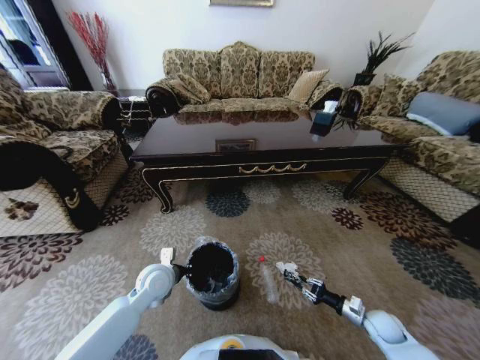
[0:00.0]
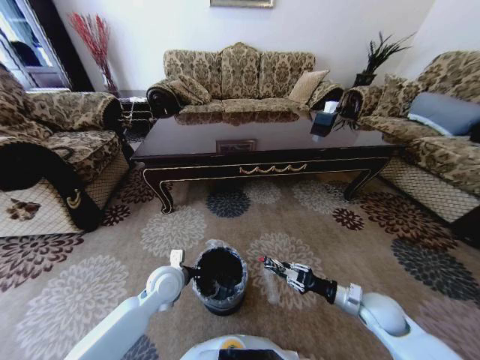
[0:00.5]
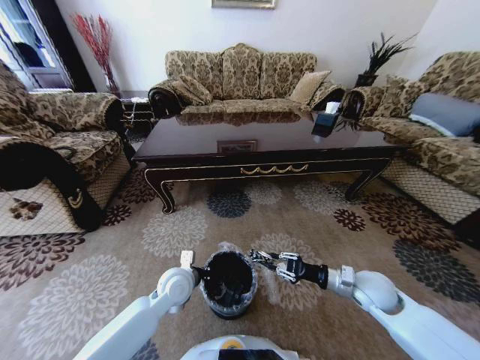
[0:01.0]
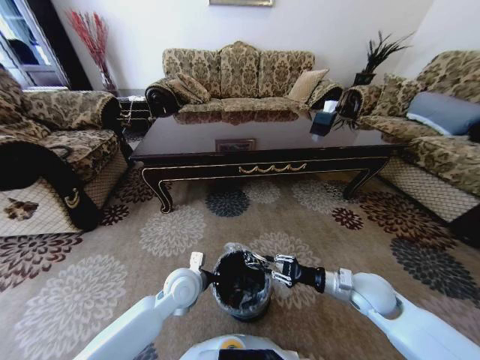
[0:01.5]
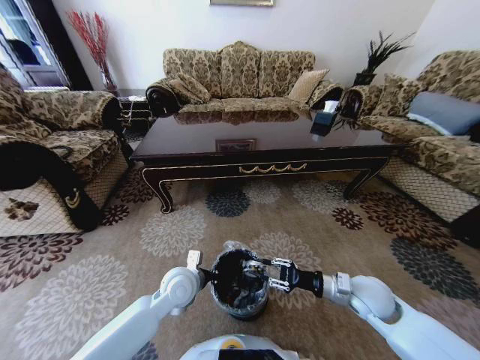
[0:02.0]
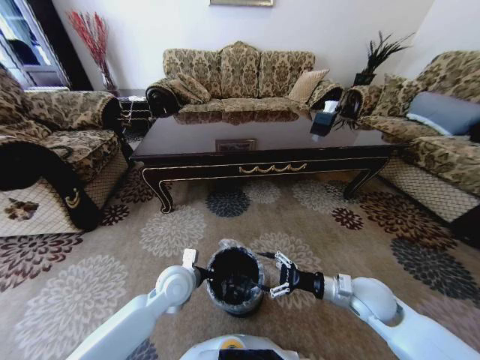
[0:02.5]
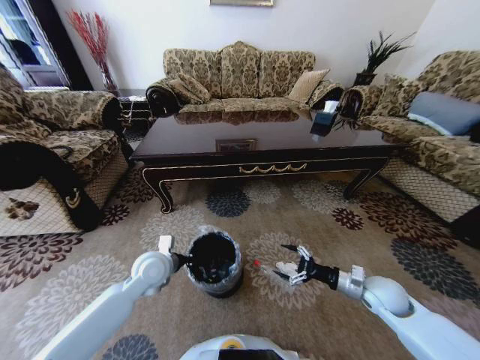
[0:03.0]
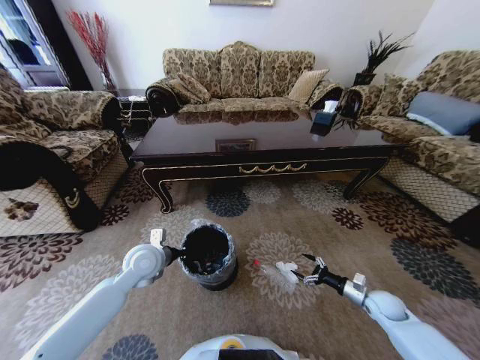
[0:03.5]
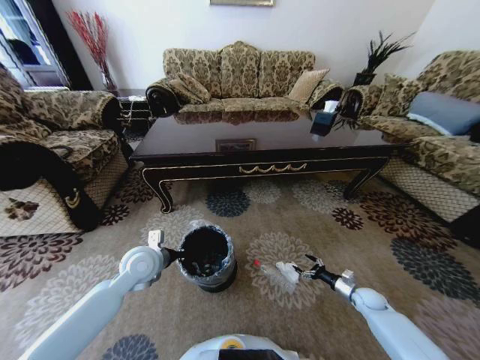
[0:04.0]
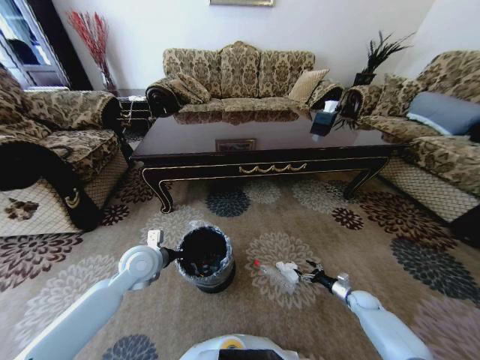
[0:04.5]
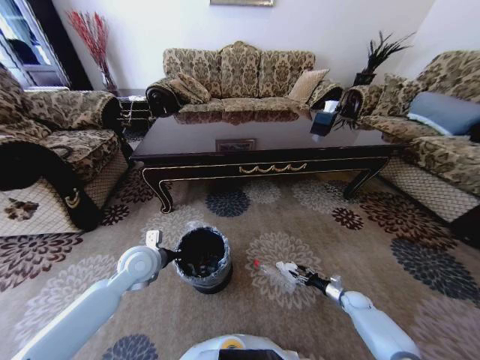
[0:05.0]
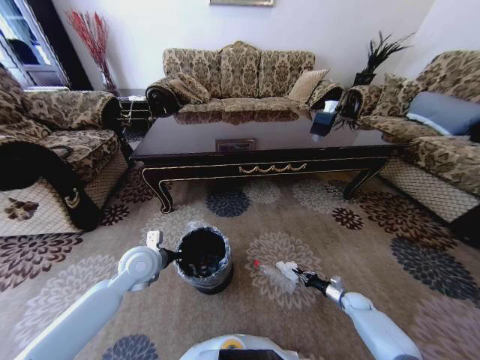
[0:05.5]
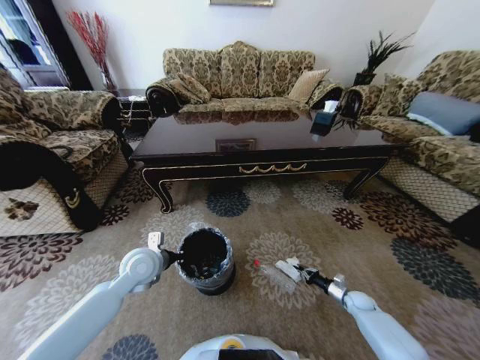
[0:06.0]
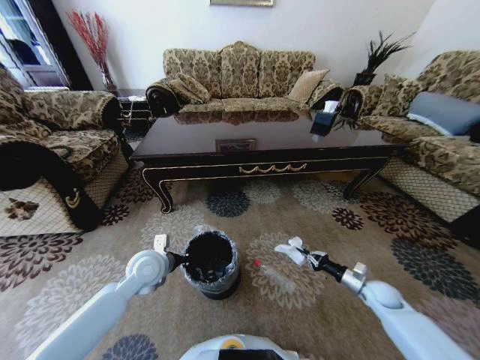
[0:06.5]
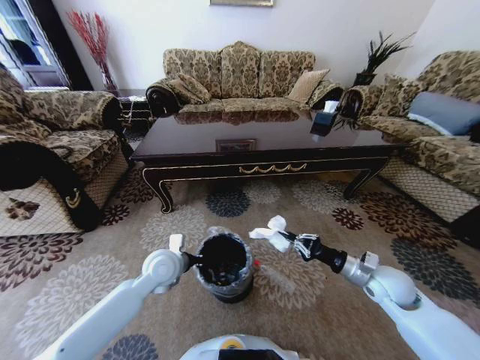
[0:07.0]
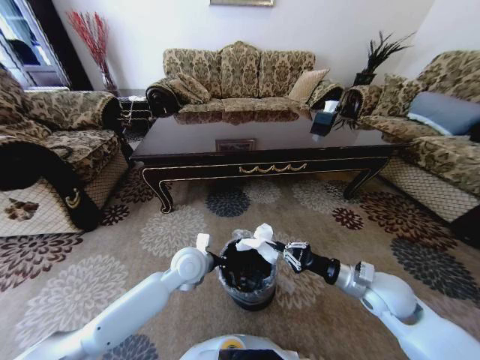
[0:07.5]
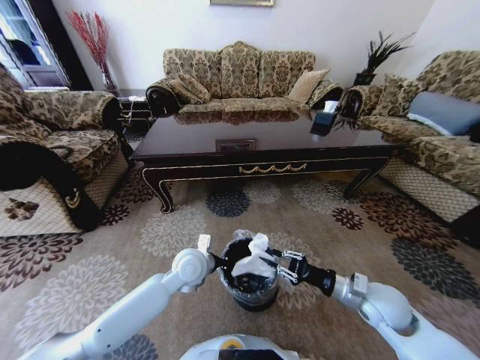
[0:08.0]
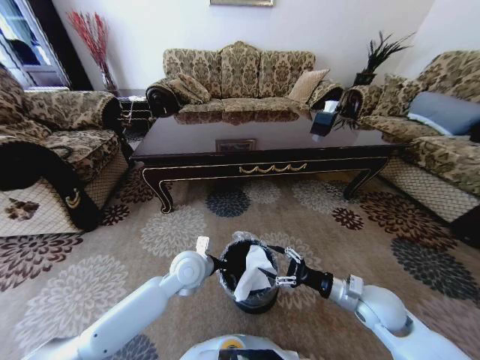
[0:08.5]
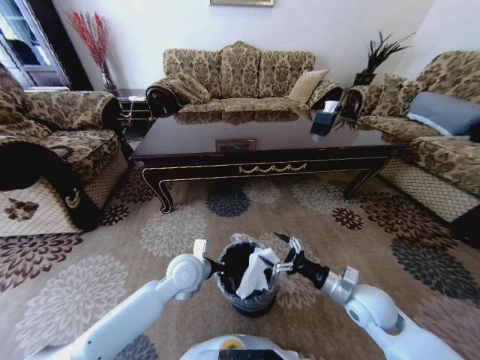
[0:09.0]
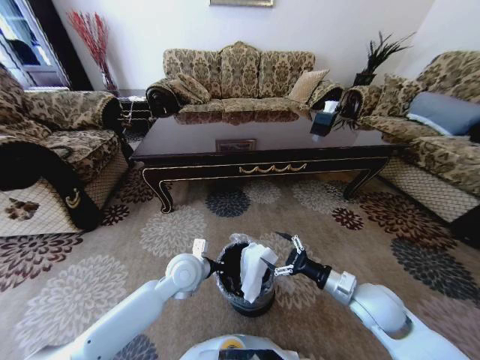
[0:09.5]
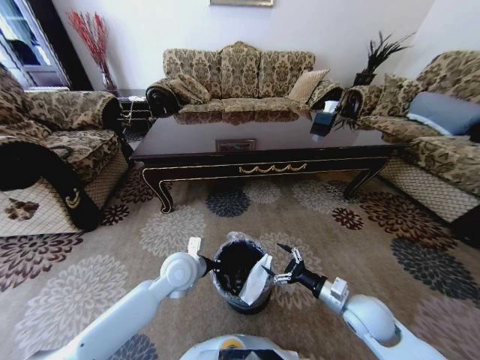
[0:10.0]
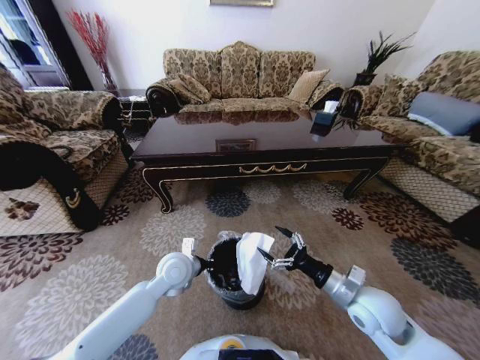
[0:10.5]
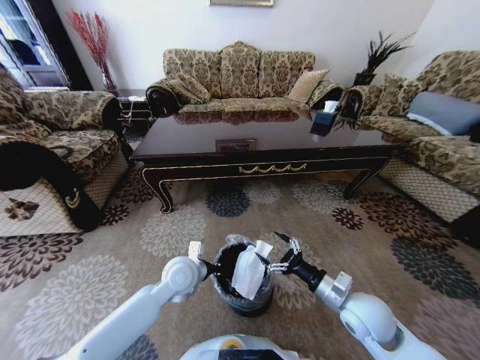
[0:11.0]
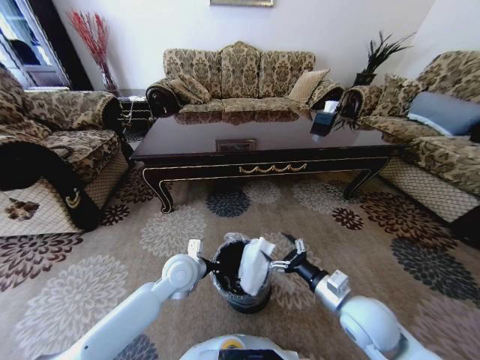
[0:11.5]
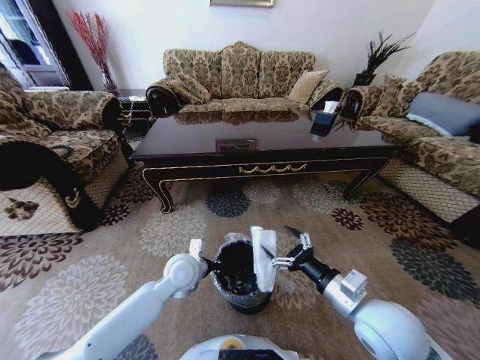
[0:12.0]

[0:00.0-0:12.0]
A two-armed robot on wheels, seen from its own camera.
Task of the whole recording: Move to the front of the table and pick up the trash from the floor, then place it into the trash bin.
0:00.0 to 0:02.0: The left gripper moves to the right, roughly 5 cm. Meanwhile the right gripper shifts some 20 cm upward and to the left.
0:02.0 to 0:04.0: The right gripper moves downward and to the right, approximately 25 cm, and opens its fingers, while the left gripper shifts about 10 cm to the left.
0:04.0 to 0:06.0: The right gripper closes its fingers.
0:06.0 to 0:08.0: The left gripper goes some 15 cm to the right. The right gripper moves upward and to the left, about 30 cm.
0:08.0 to 0:10.0: The right gripper opens up.
0:10.0 to 0:12.0: The right gripper is displaced upward and to the left by approximately 15 cm.

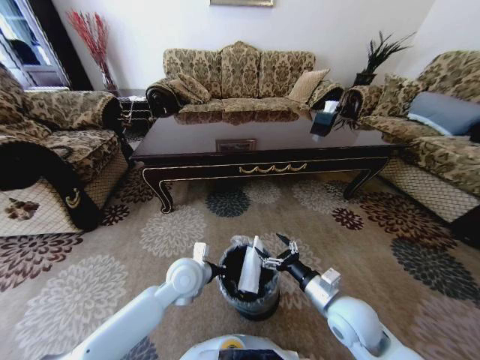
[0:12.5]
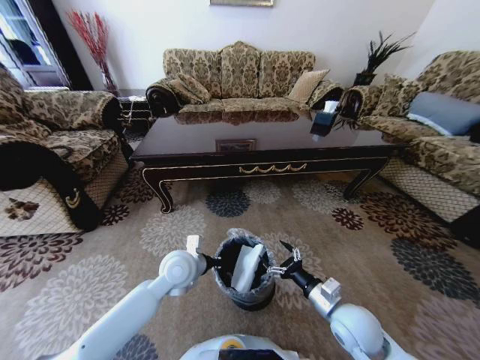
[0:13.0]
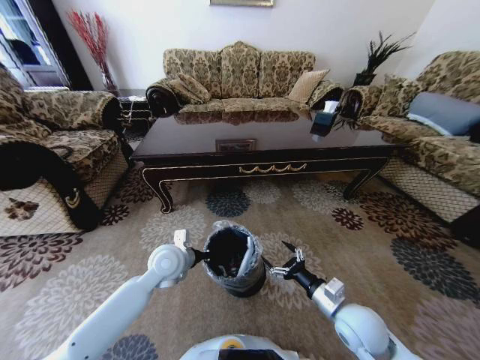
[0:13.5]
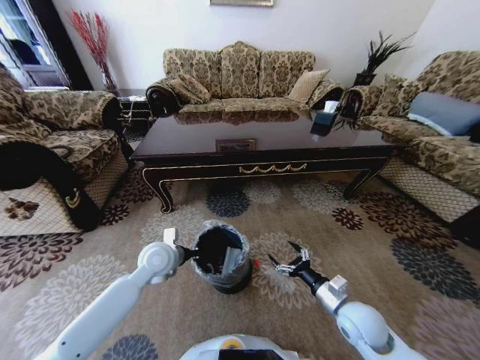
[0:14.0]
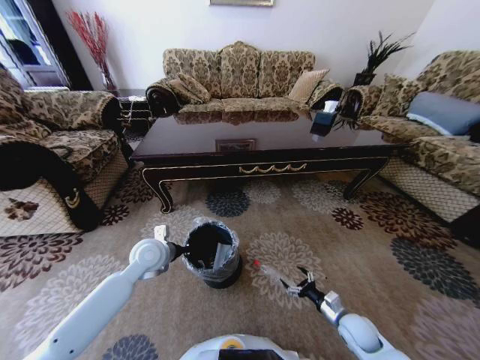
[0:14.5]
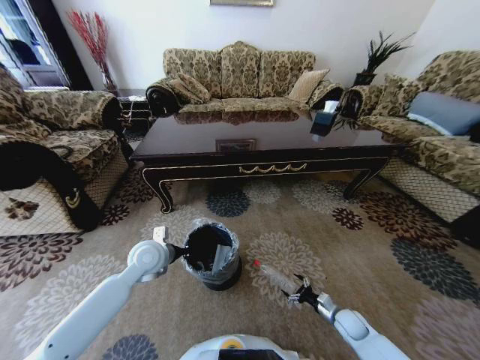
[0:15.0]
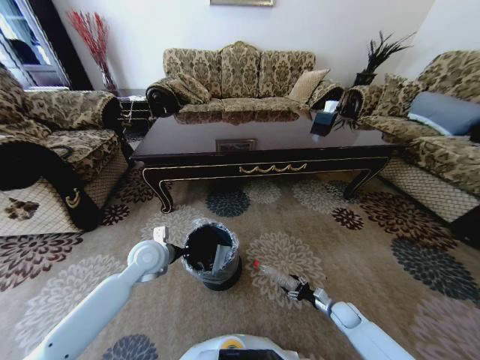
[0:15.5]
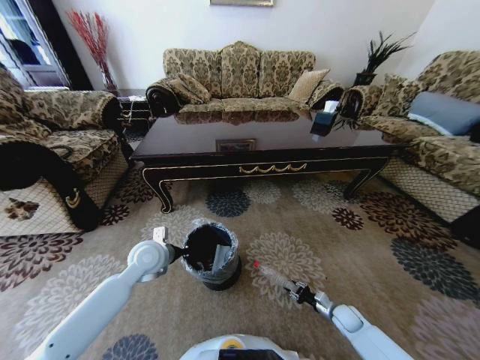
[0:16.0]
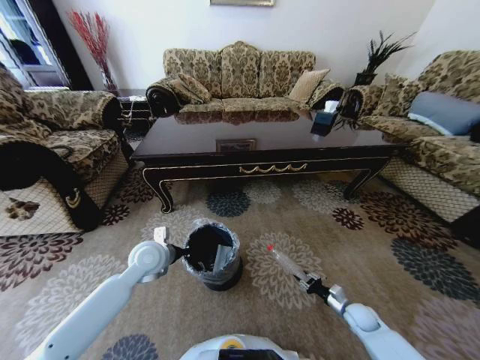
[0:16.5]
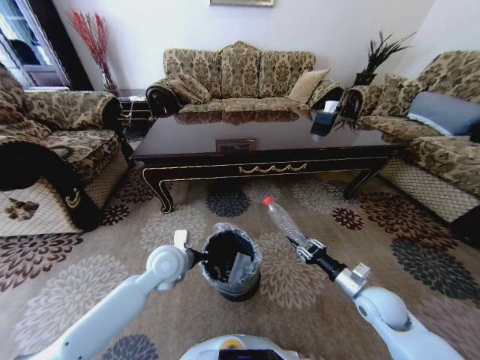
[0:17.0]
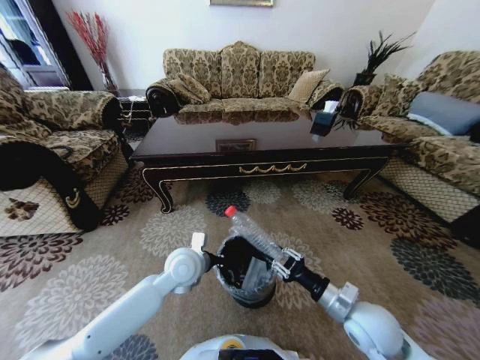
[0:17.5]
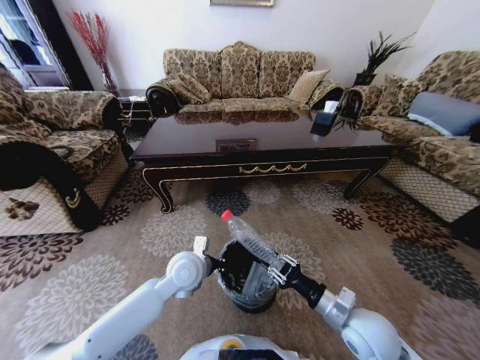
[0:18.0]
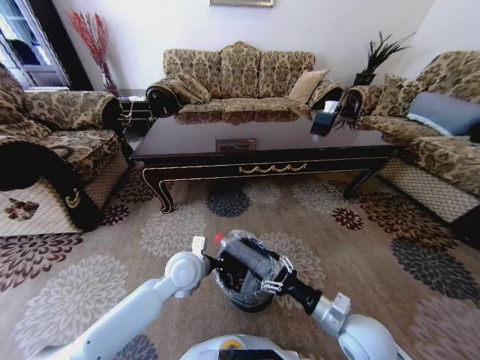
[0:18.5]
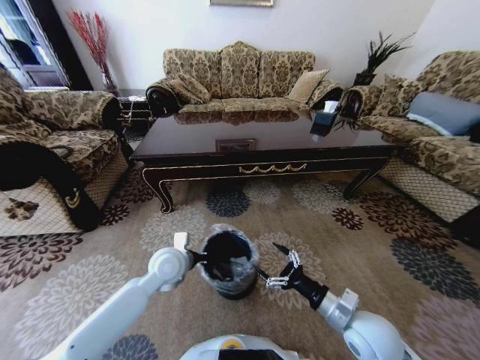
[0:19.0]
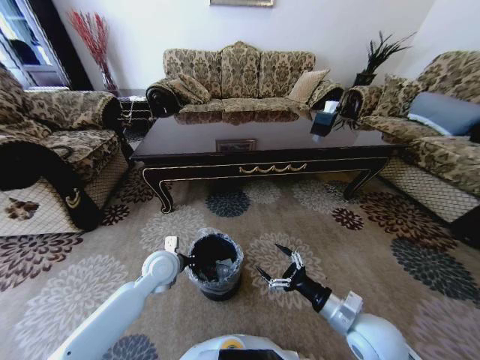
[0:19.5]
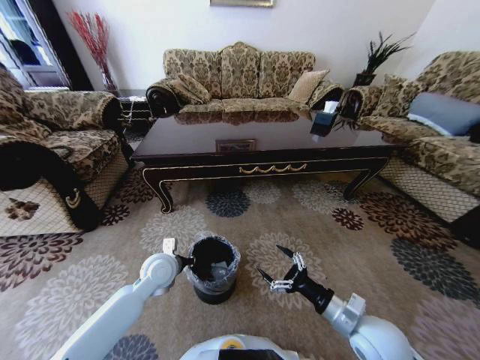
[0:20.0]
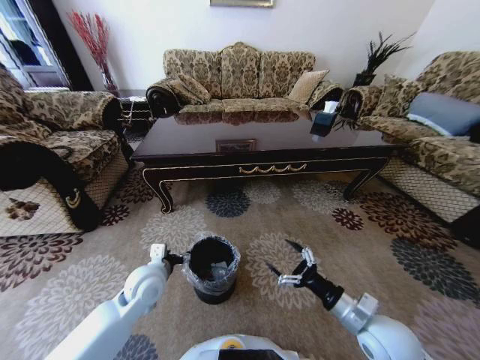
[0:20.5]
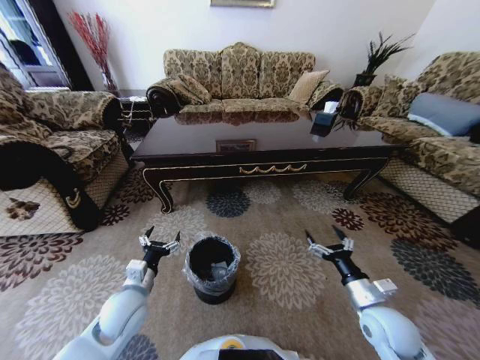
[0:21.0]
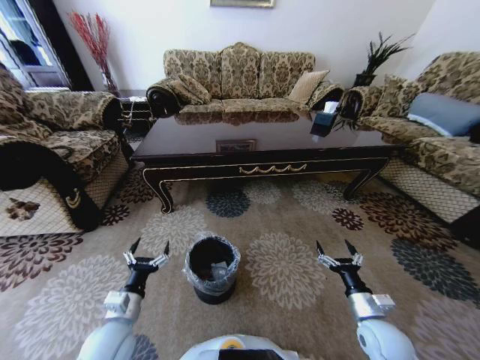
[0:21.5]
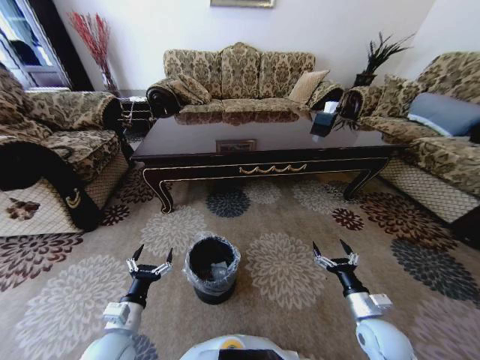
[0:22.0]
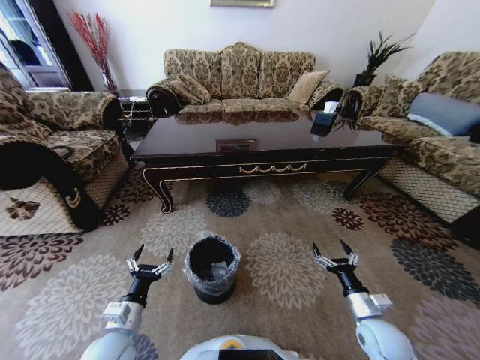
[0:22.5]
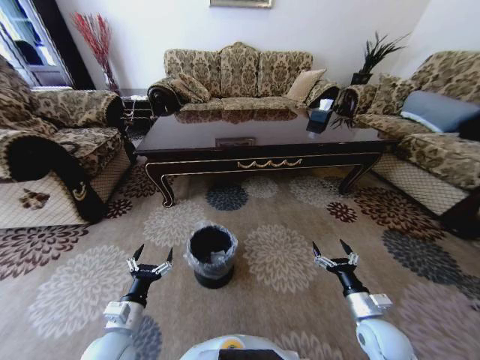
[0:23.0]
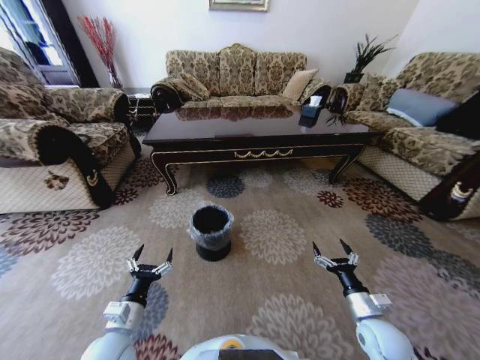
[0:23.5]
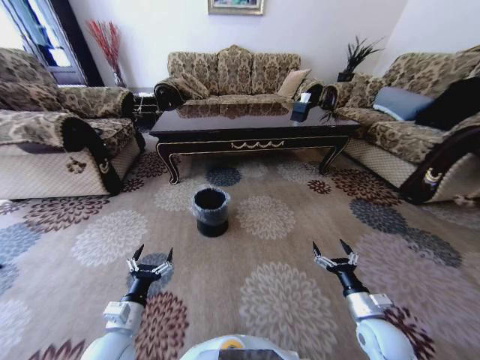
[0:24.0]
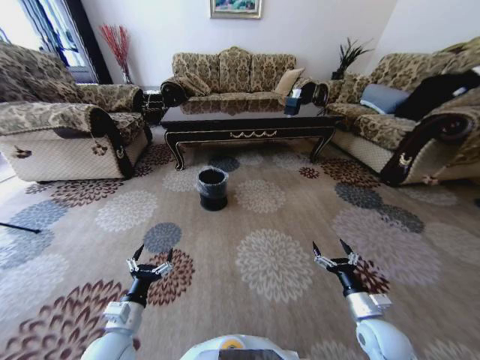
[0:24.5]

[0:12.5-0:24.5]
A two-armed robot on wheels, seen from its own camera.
Task of the whole recording: Move to the front of the table and pick up the trash from the floor, then place it into the trash bin.
0:12.5 to 0:14.5: The left gripper goes some 10 cm to the left and forward. The right gripper heads downward and to the right, covering roughly 20 cm.
0:14.5 to 0:16.5: The right gripper shifts approximately 10 cm to the right and downward, and closes up.
0:16.5 to 0:18.5: The left gripper goes approximately 10 cm to the right, while the right gripper shifts approximately 30 cm upward and to the left, and opens.
0:18.5 to 0:20.5: The left gripper travels to the left by about 10 cm, and opens.
0:20.5 to 0:22.5: The right gripper is displaced downward and to the right by some 10 cm; the left gripper goes roughly 15 cm backward.
